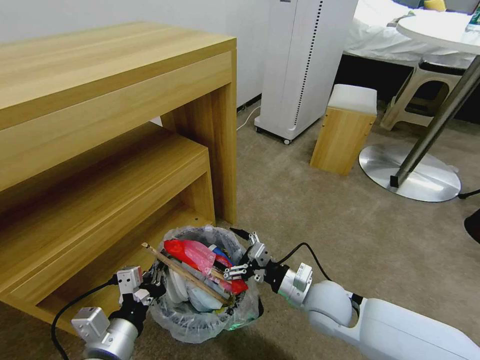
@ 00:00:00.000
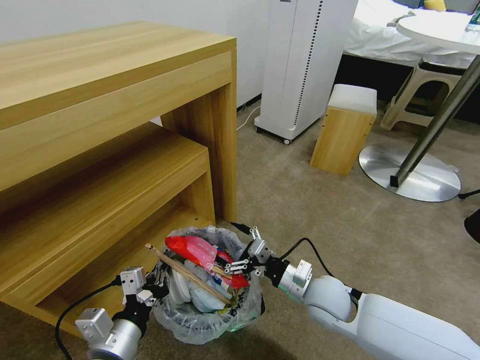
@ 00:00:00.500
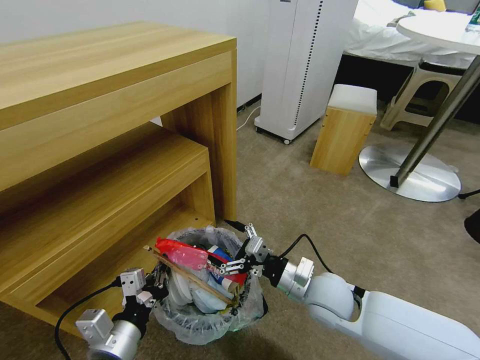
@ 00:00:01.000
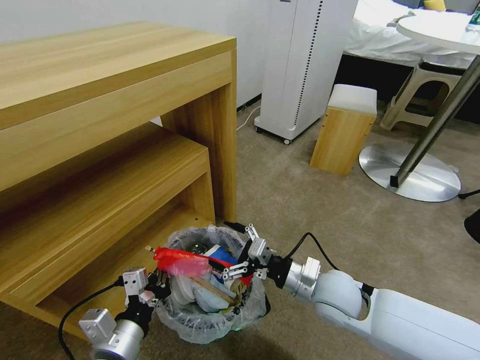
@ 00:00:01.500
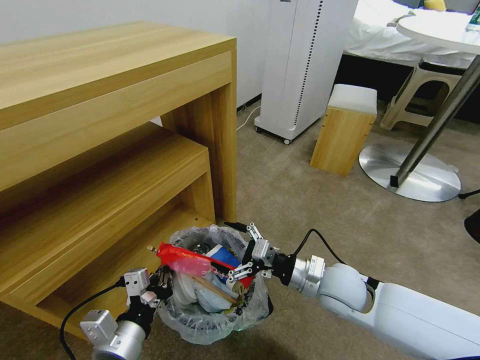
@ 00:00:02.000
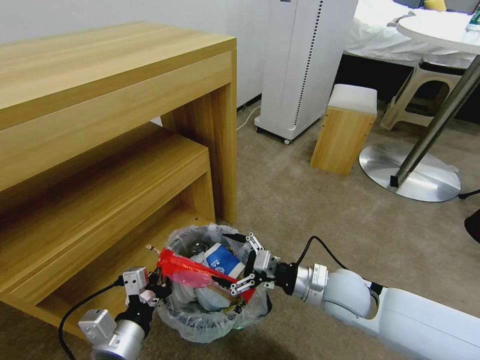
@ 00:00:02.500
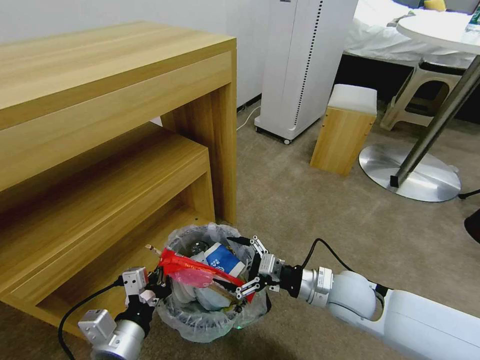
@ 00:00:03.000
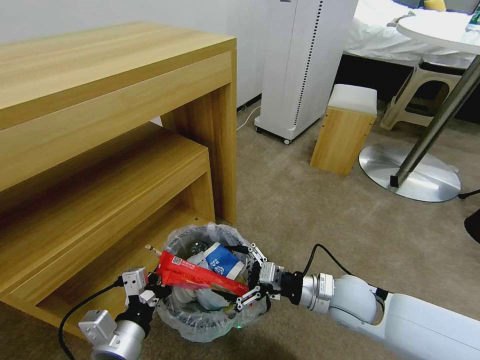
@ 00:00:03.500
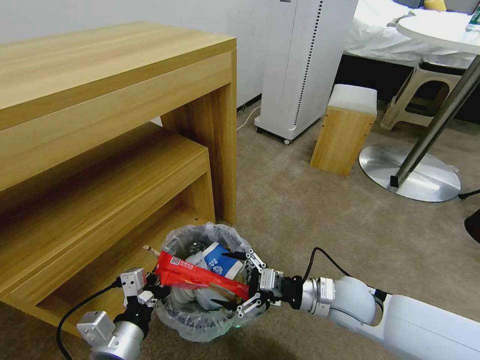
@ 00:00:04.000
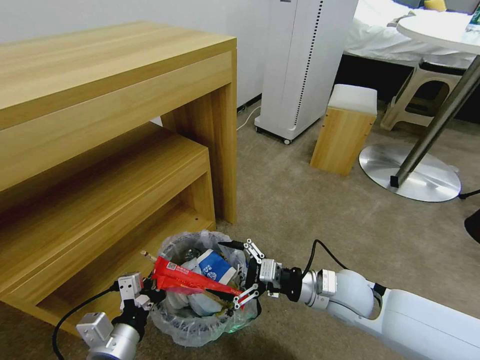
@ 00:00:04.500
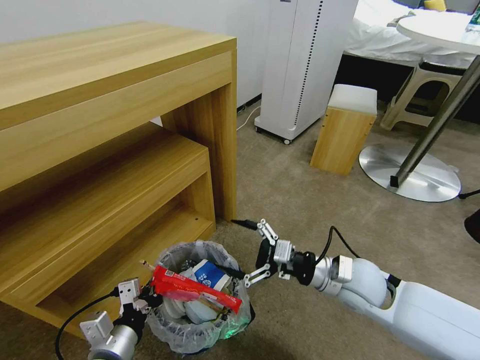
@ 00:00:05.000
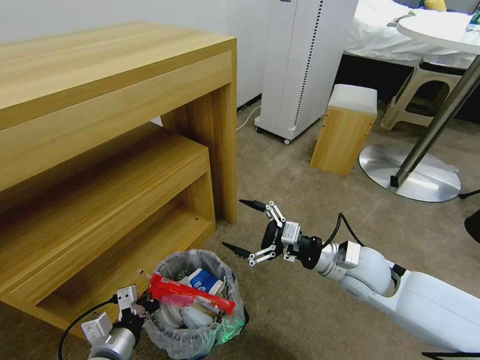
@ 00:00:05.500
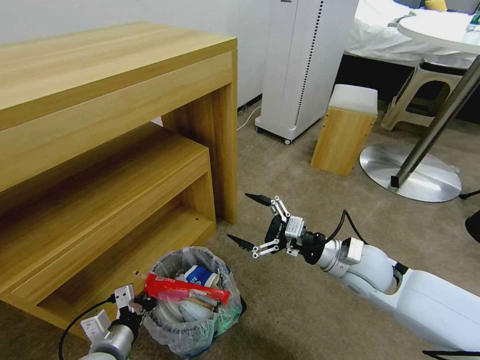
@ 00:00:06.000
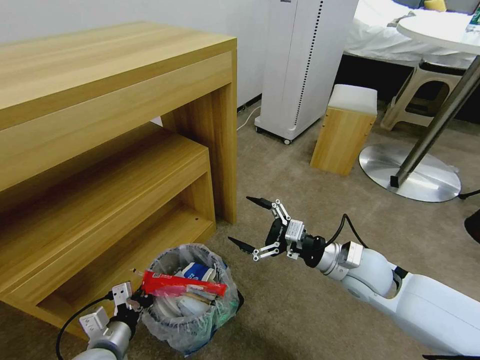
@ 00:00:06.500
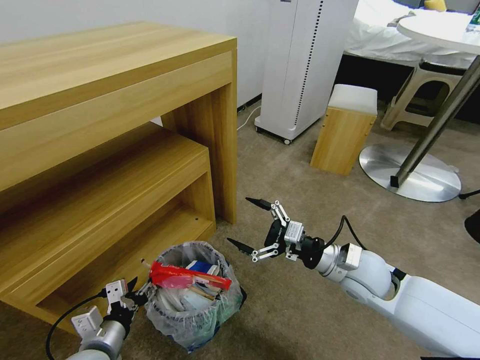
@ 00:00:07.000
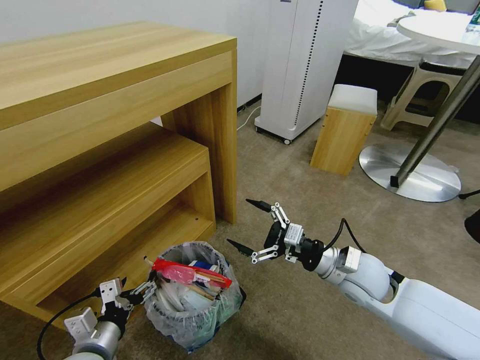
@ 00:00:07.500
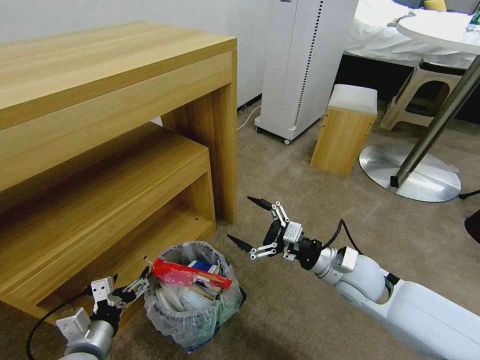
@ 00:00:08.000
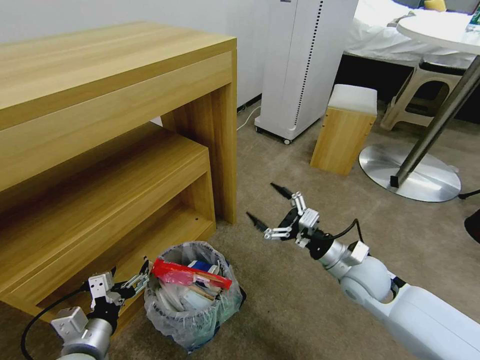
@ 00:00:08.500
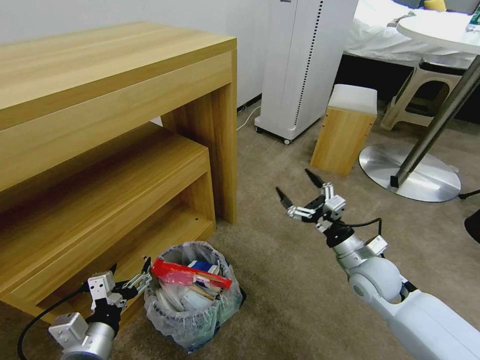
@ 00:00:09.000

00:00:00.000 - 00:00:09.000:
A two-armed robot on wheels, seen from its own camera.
Task of the whole recording: Pick up the trash bin and place the garbage on the floor into it.
00:00:00.000 - 00:00:02.000: The grippers stay close to where they were, moving slightly.
00:00:02.000 - 00:00:04.500: The grippers stay close to where they were, moving slightly.
00:00:04.500 - 00:00:07.000: The right gripper shifts by approximately 5 cm, while the left gripper moves downward and to the left, roughly 10 cm, and opens its fingers.
00:00:07.000 - 00:00:09.000: The left gripper ends up roughly 5 cm from where it was.

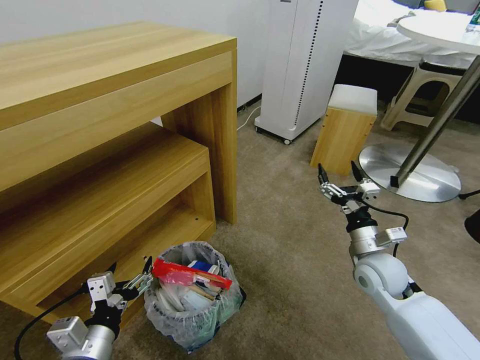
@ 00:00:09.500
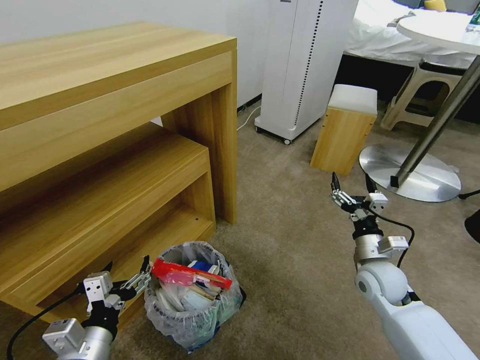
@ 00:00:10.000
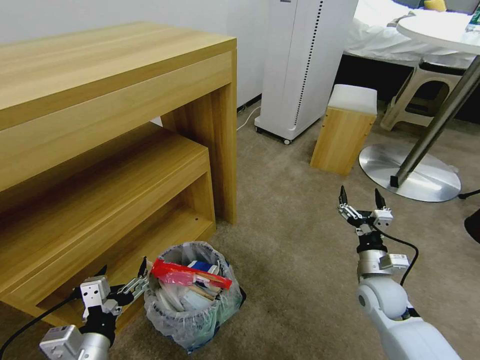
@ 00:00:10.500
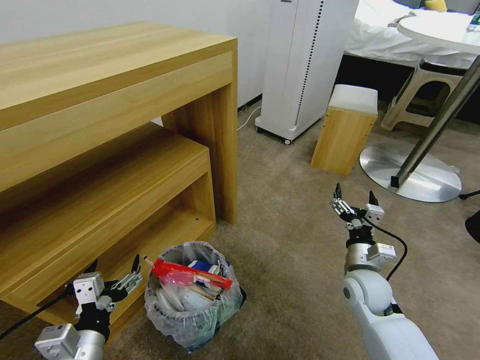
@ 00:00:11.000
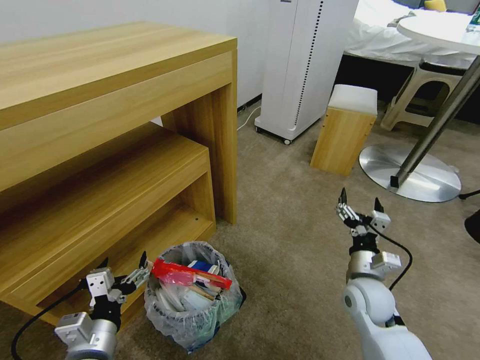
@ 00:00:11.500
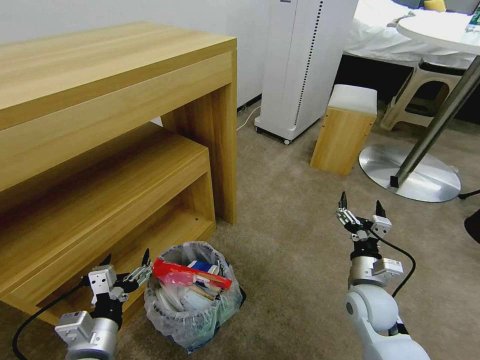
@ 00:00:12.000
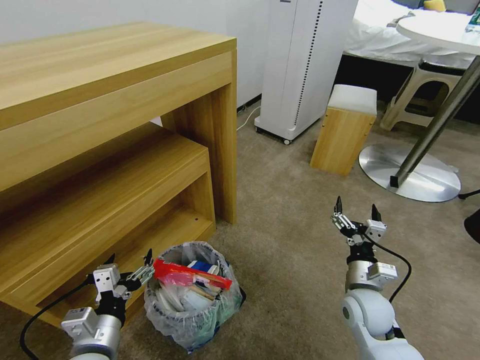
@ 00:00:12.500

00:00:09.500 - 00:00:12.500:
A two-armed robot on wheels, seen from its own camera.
Task of the whole recording: Pick up the trash bin and place the garbage on the floor into it.
00:00:09.500 - 00:00:11.000: The right gripper changes place by roughly 5 cm.
00:00:11.000 - 00:00:12.500: The grippers stay close to where they were, moving slightly.
